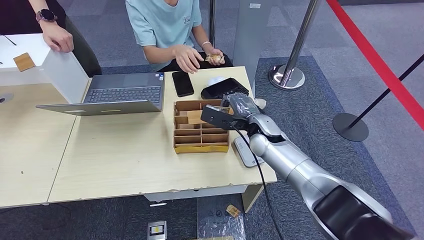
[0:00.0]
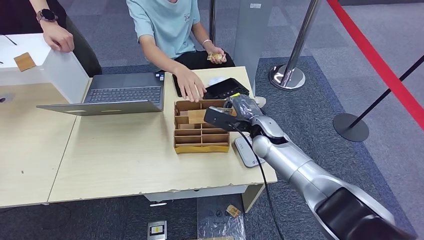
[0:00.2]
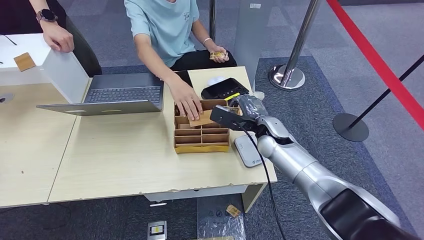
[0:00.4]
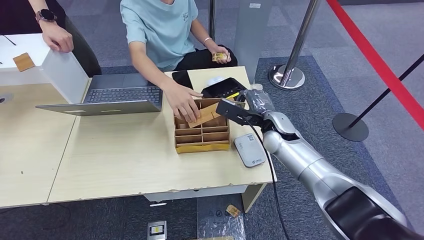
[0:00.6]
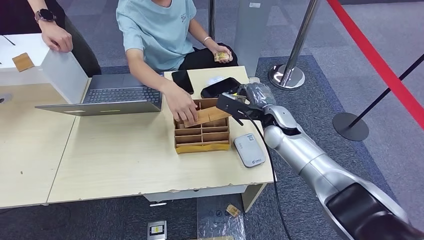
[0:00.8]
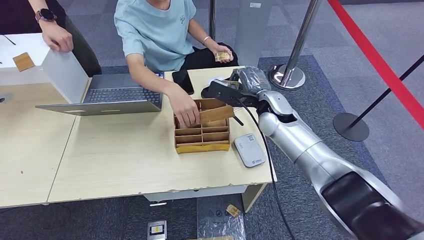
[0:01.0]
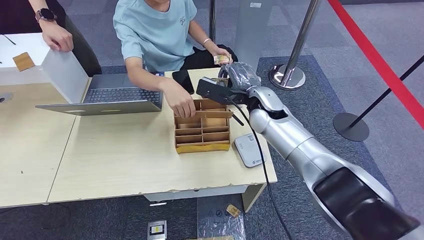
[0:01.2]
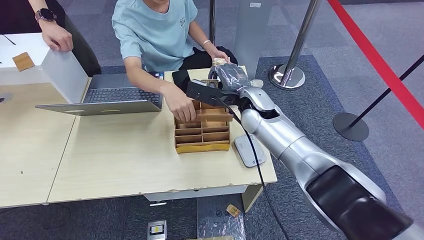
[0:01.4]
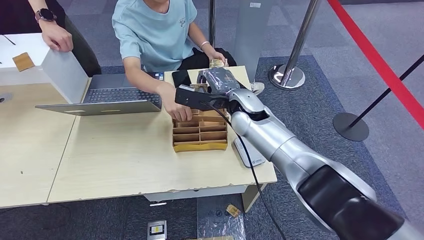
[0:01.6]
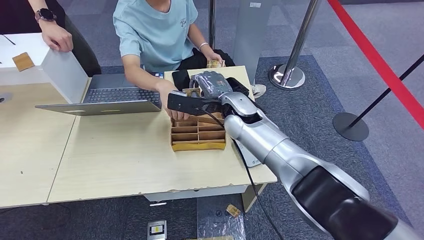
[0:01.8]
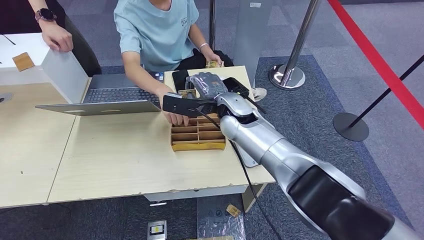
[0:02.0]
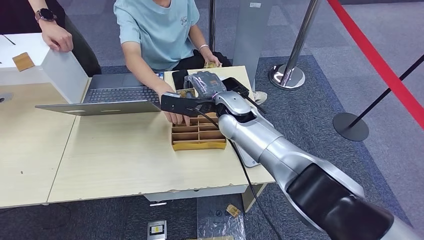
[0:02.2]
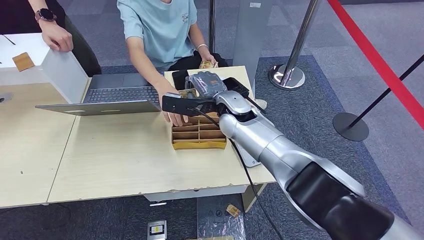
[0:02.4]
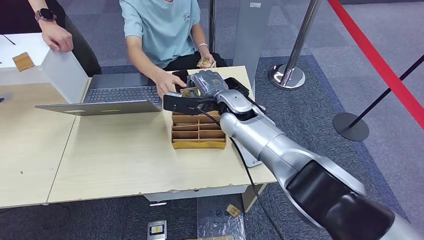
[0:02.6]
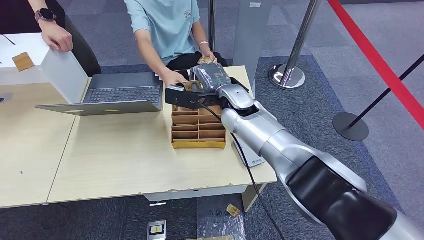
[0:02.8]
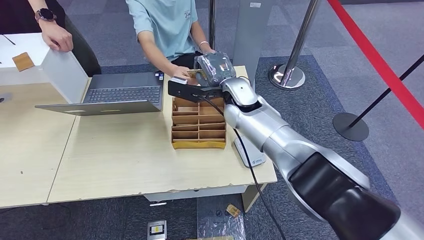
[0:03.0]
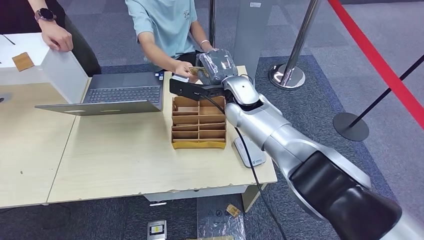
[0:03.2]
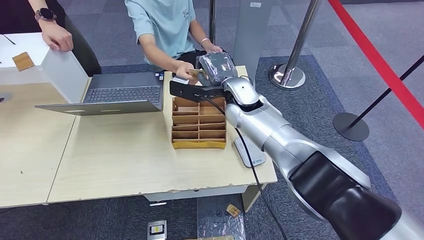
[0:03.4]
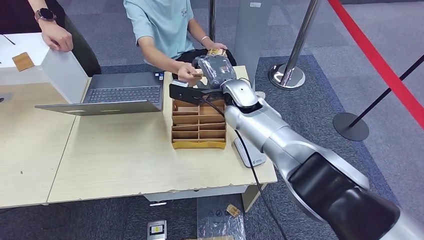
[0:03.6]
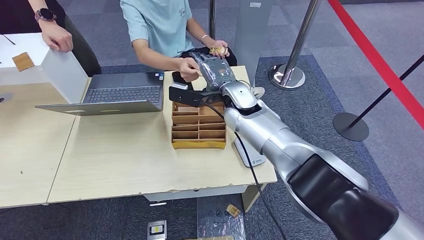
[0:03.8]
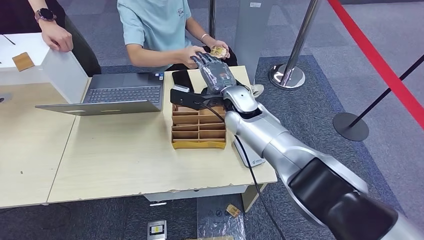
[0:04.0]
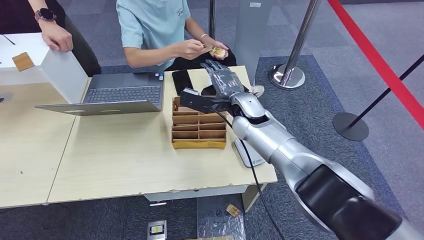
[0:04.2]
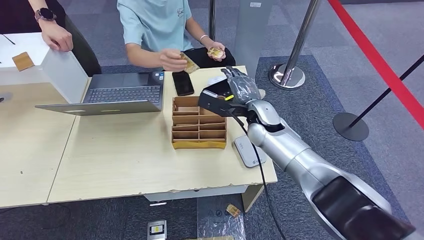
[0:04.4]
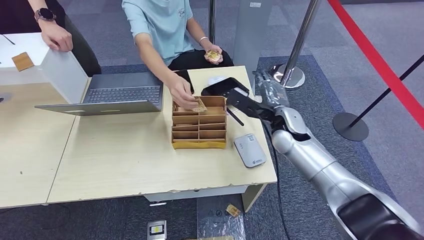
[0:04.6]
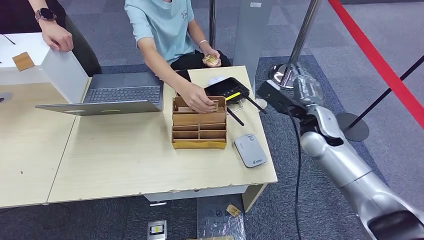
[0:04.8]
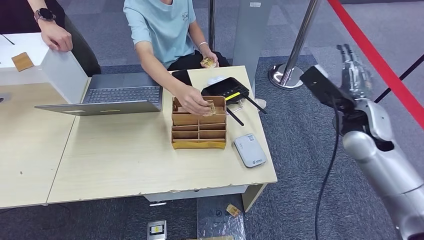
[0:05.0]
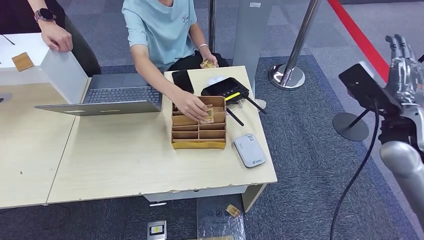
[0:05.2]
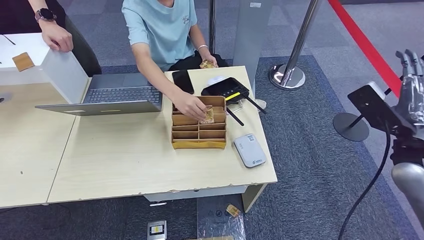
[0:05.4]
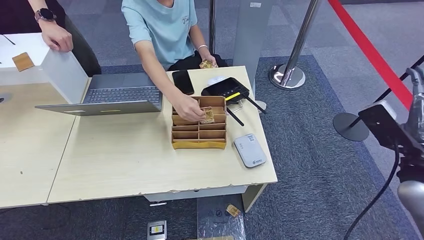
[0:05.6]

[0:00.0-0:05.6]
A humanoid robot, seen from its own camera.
Step, 0:00.0 to 0:05.6: Hand the room key to the person.
0:00.0 to 0:01.4: The right hand heads upward, covering some 10 cm.
0:01.4 to 0:02.8: The right hand is displaced to the left by approximately 5 cm.
0:02.8 to 0:04.2: There are only small adjustments of the hands.
0:04.2 to 0:05.6: The right hand is displaced to the right and backward by approximately 40 cm.
